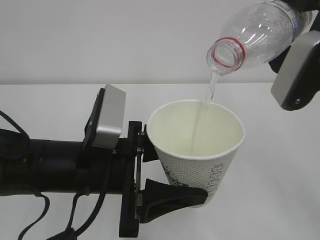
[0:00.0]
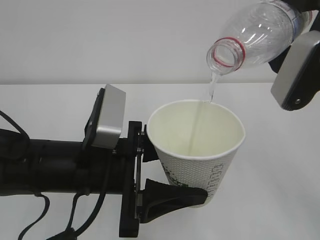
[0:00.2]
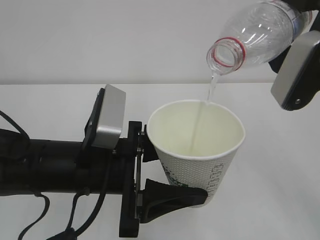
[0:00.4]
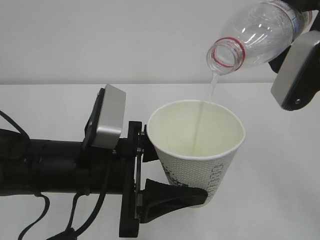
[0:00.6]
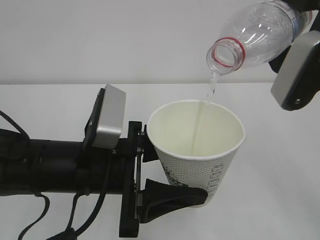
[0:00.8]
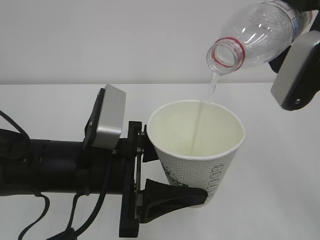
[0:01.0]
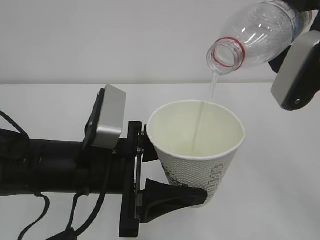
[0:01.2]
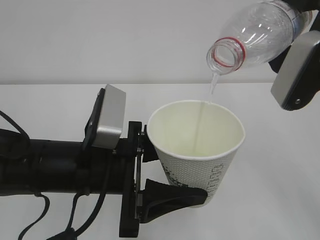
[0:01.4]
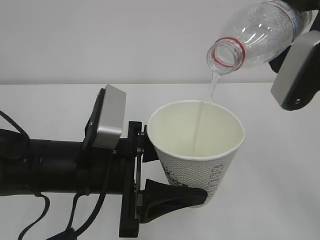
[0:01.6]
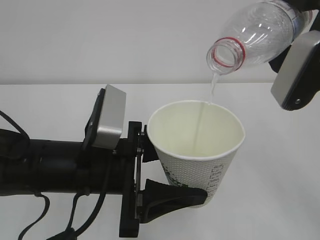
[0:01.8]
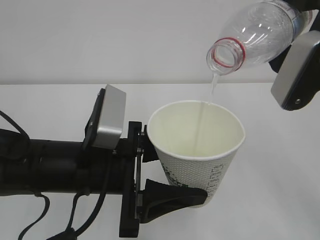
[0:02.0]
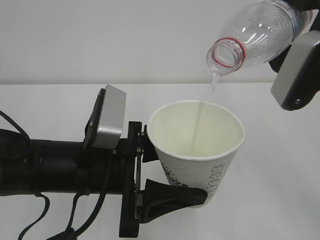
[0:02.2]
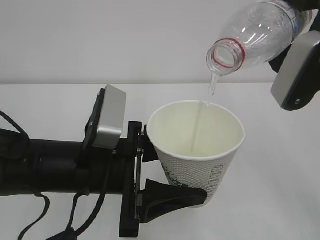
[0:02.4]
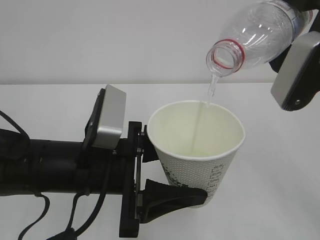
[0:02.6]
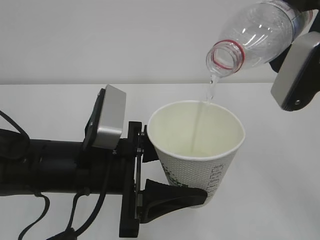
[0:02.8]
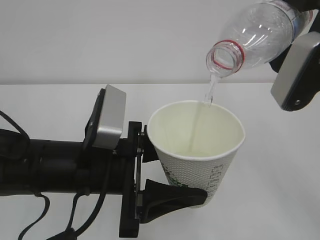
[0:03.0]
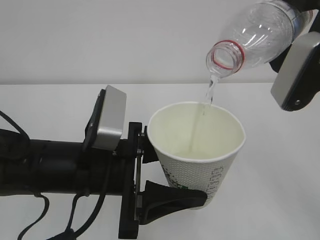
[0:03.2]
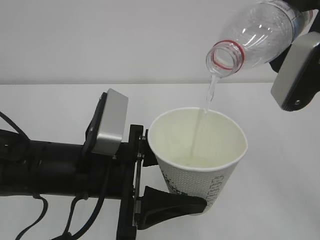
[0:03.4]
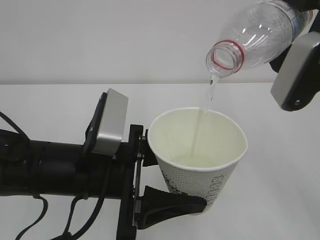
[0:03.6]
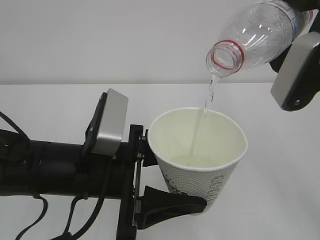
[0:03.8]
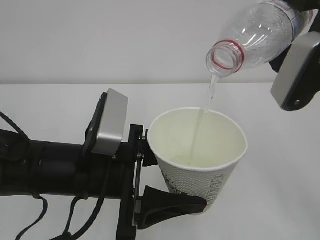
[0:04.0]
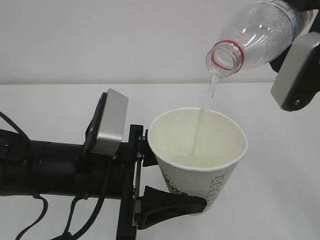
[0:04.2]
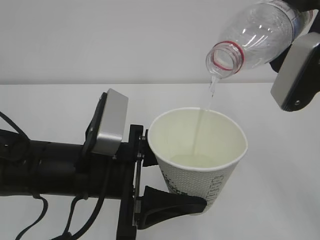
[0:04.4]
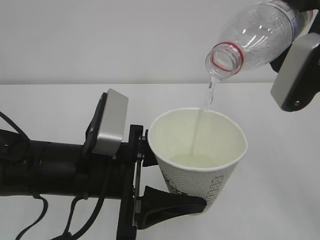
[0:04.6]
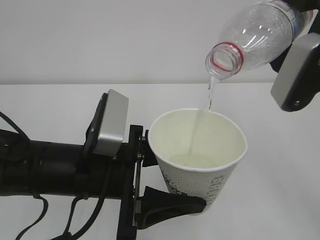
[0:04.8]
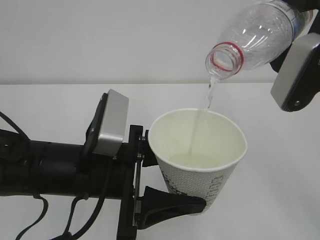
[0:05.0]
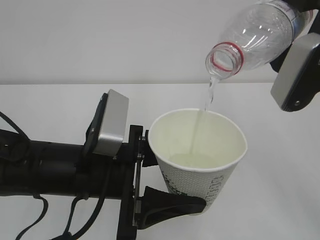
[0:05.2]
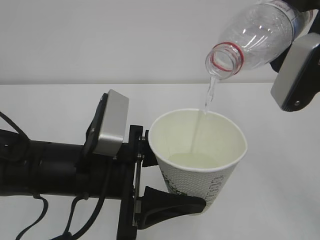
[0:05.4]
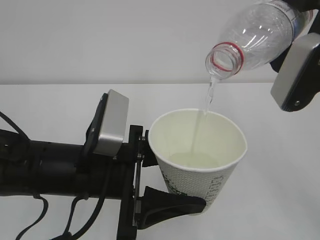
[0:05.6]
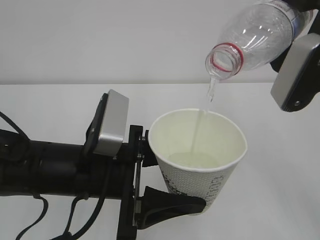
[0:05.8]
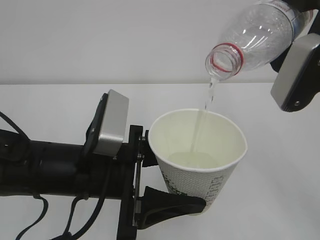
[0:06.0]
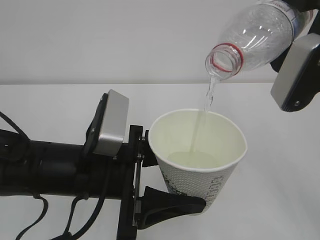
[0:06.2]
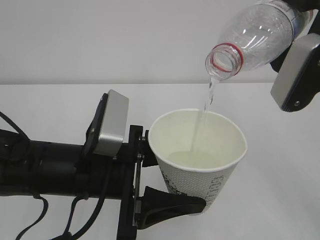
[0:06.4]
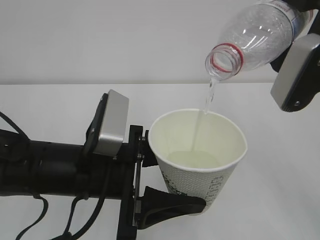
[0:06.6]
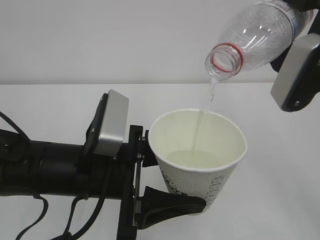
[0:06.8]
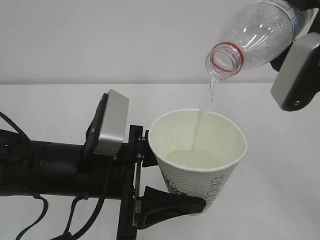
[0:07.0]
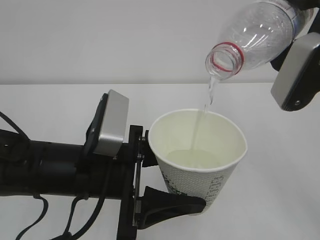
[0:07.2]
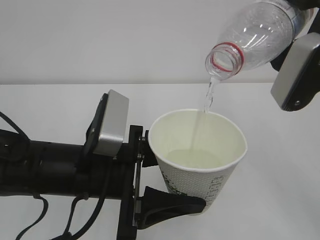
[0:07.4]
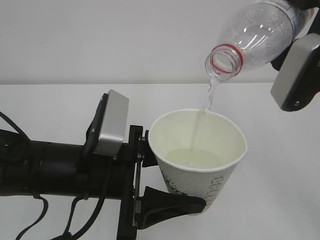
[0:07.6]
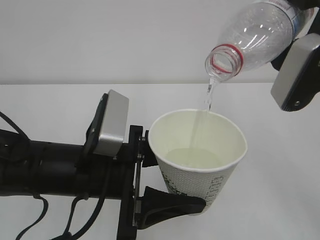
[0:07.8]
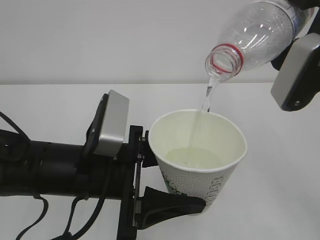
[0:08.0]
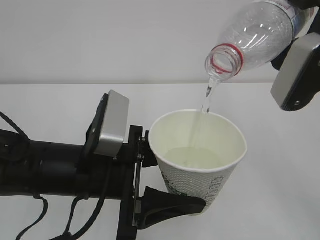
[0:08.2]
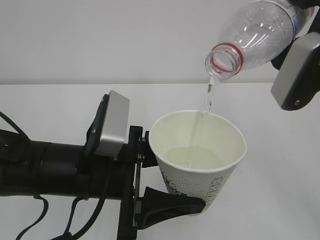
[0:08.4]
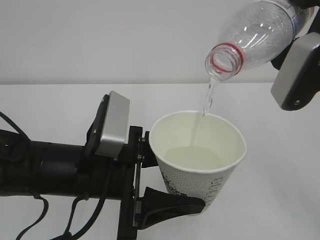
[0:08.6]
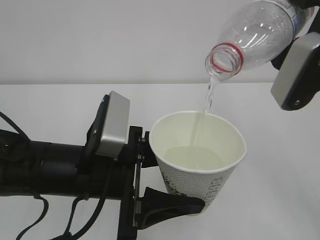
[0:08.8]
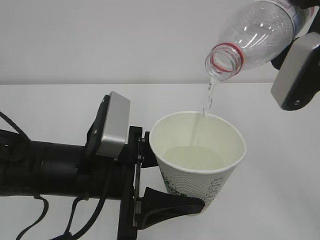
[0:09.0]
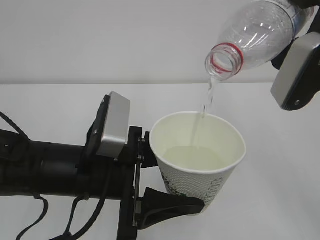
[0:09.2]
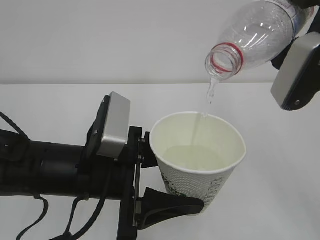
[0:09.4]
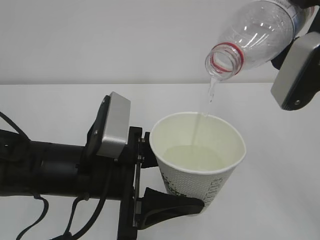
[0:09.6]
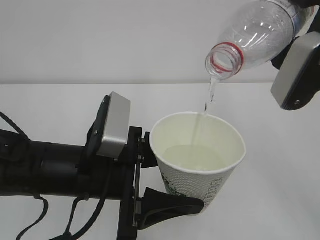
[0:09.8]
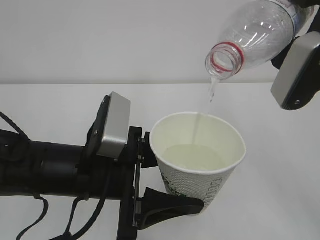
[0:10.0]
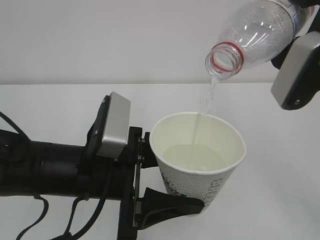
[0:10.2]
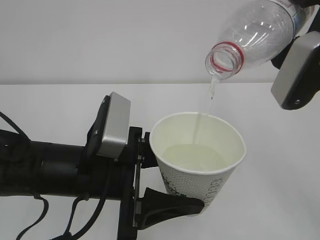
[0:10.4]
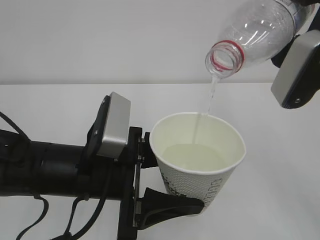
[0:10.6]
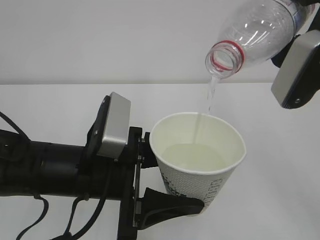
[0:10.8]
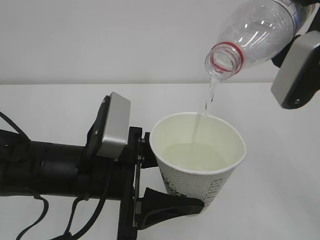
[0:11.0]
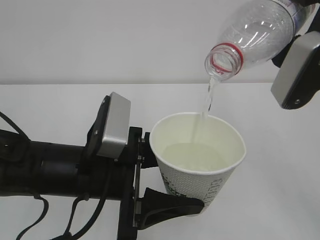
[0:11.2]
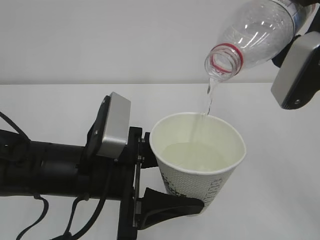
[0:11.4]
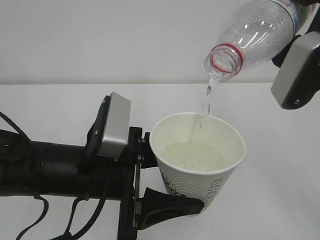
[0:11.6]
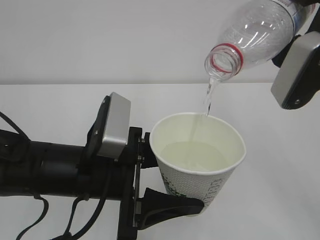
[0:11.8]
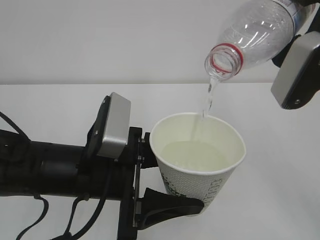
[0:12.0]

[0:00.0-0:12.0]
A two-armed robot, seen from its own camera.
0:00.0 to 0:09.0: Both grippers stay put.
0:09.0 to 0:12.0: Both grippers stay put.

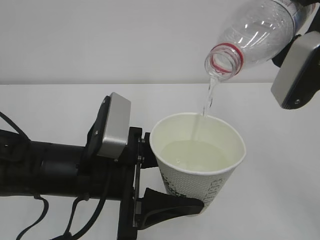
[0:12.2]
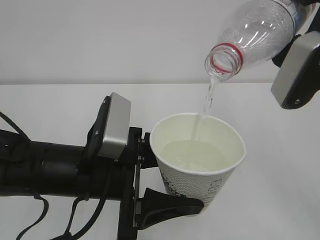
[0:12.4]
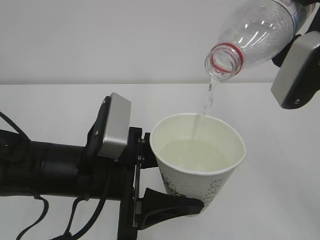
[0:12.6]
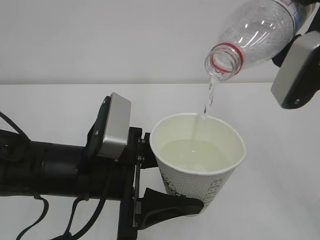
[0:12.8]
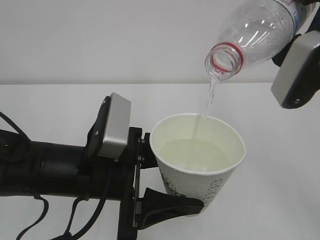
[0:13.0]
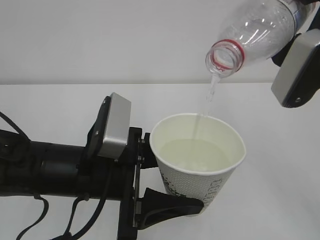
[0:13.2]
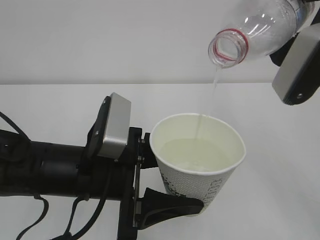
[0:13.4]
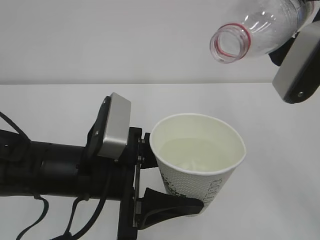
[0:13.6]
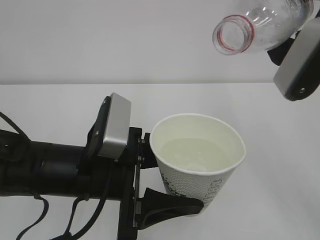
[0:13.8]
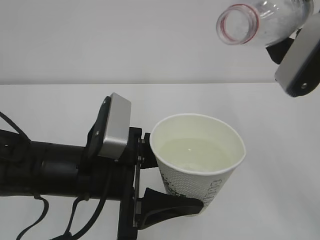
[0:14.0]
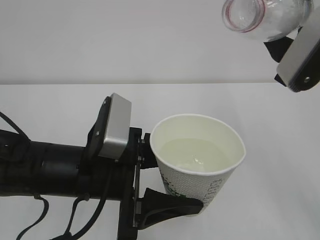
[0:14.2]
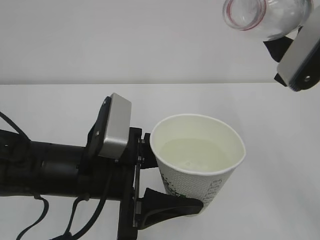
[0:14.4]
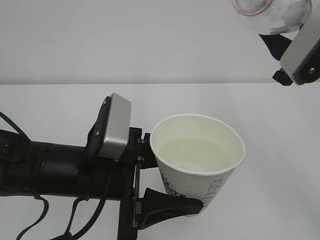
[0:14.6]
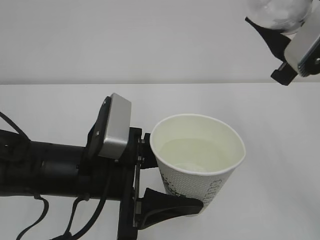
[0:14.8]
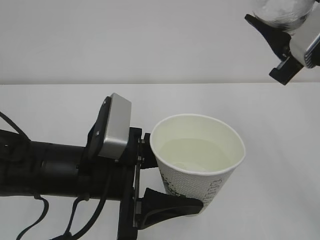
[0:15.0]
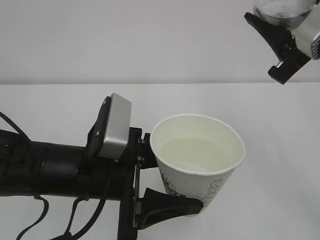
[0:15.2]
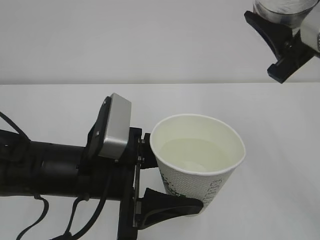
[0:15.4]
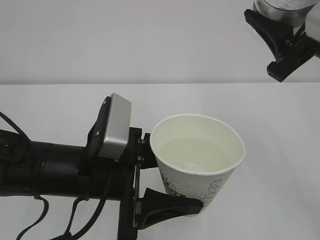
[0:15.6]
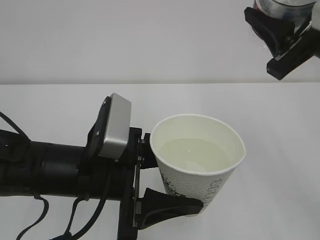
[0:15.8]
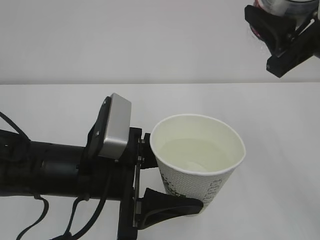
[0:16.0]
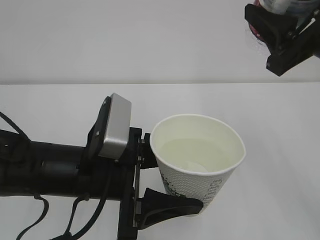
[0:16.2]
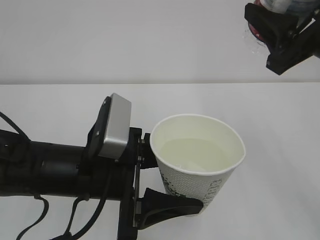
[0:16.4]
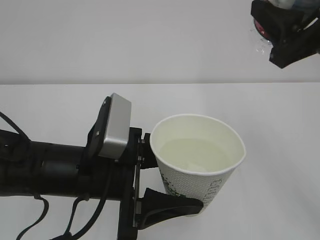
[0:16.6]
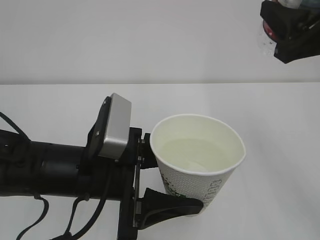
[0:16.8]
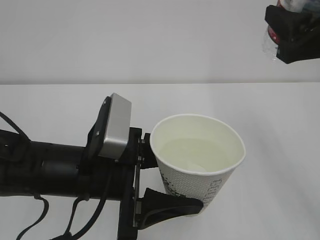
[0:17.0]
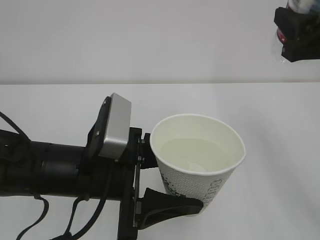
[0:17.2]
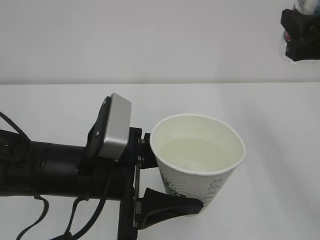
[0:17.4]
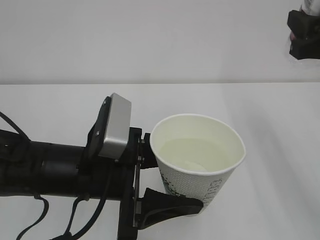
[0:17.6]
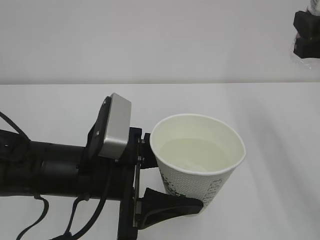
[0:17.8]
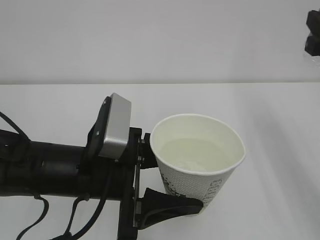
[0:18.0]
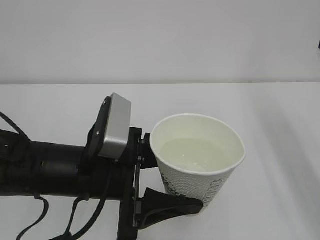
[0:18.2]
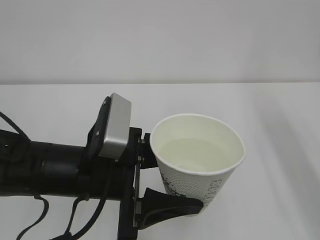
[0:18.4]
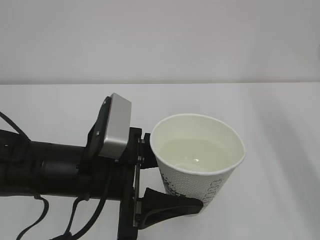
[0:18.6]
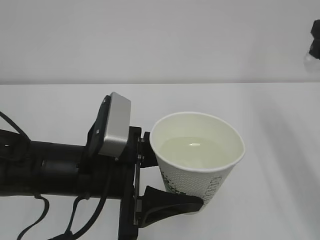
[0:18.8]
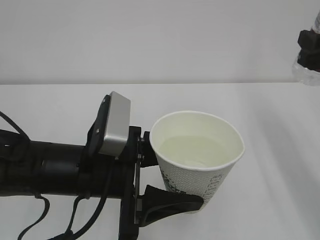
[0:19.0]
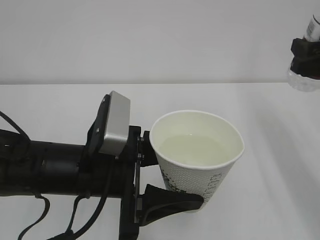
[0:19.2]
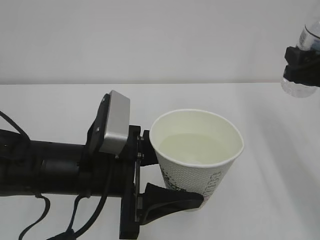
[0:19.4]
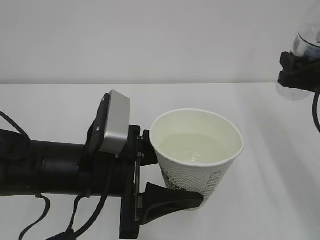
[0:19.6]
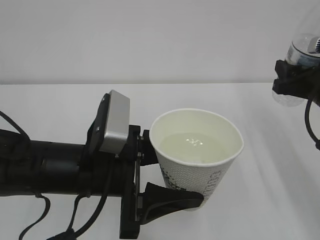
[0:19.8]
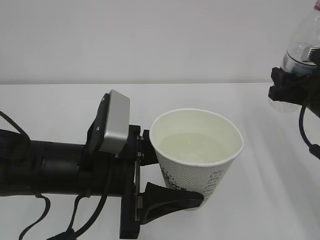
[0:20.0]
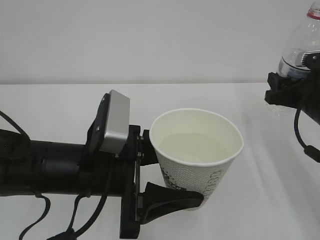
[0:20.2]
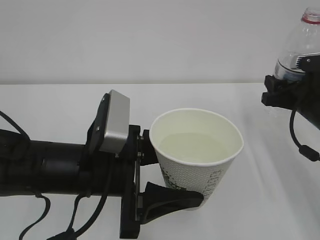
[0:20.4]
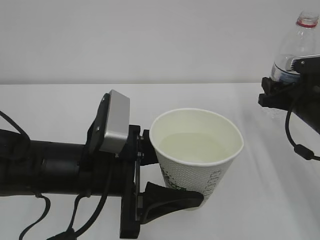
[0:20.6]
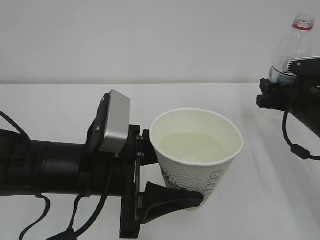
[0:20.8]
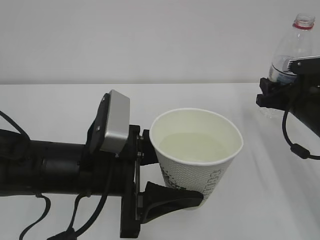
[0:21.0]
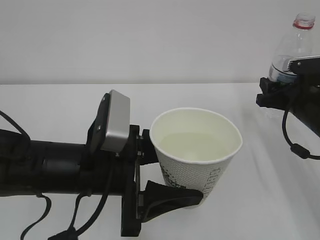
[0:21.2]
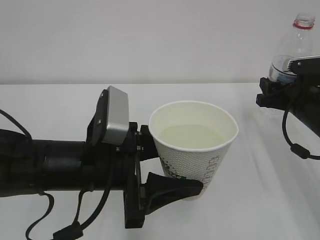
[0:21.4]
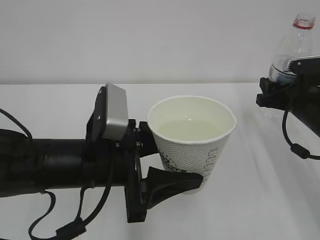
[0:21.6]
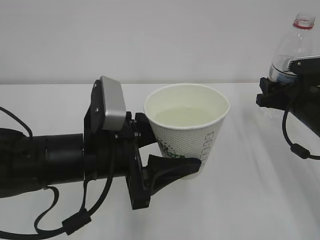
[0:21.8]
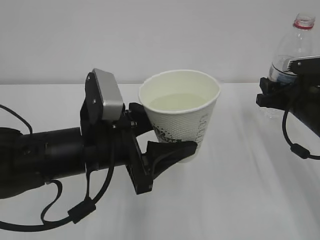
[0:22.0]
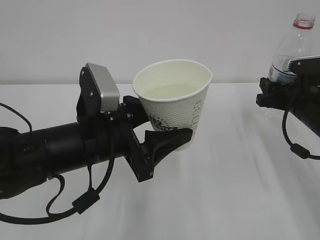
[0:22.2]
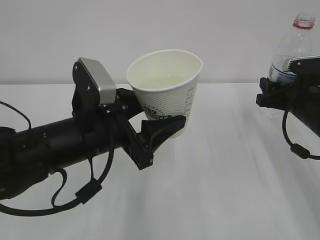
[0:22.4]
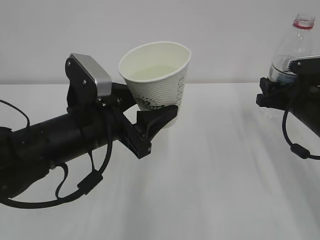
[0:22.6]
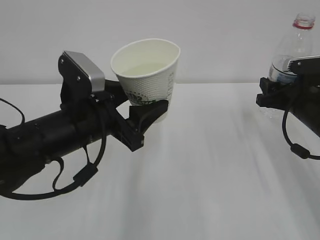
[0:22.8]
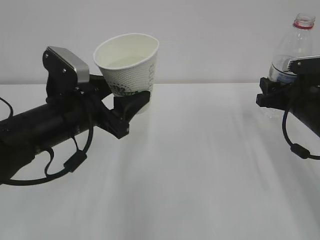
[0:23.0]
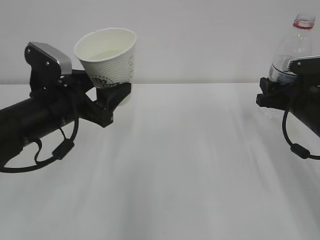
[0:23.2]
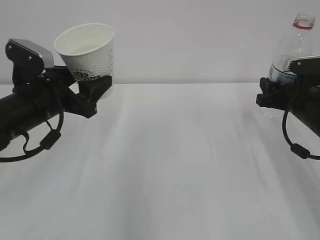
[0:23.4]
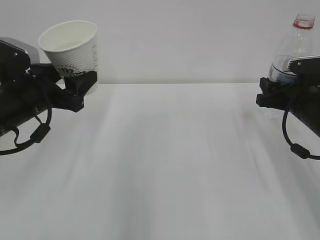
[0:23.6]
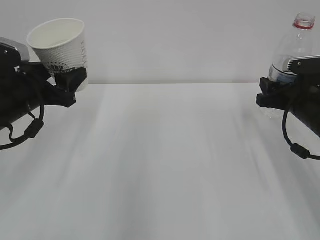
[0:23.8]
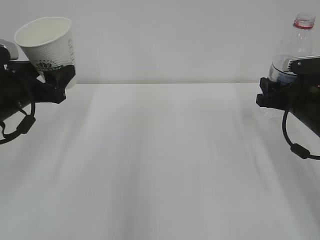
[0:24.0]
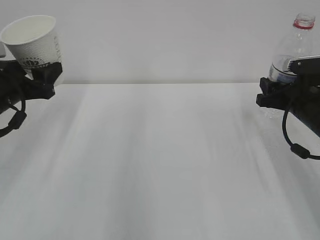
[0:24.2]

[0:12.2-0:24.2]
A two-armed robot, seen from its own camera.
0:12.2 to 0:13.8: The grippers move only a little.
0:16.6 to 0:18.2: The right gripper moves to the right, roughly 5 cm.
0:18.2 to 0:19.8: The right gripper moves downward and forward, about 10 cm.
0:19.8 to 0:21.2: The right gripper moves downward, roughly 5 cm.
0:21.2 to 0:22.6: The left gripper changes place by some 5 cm.
0:22.6 to 0:24.2: The left gripper travels to the left and forward by about 20 cm.
